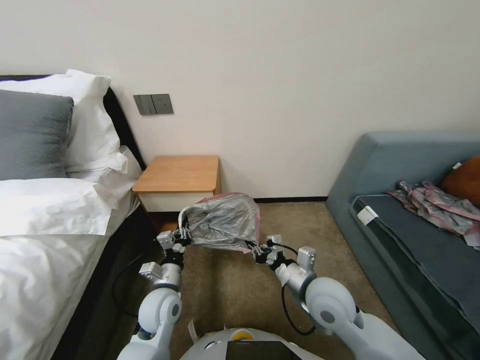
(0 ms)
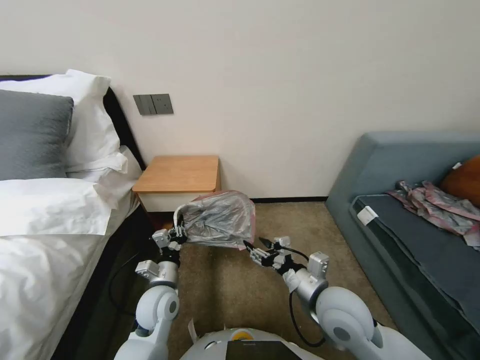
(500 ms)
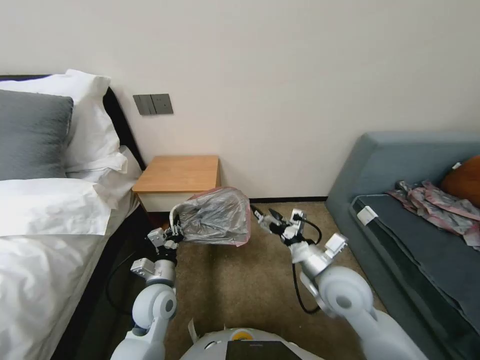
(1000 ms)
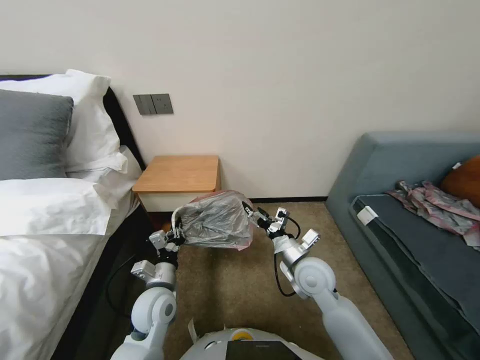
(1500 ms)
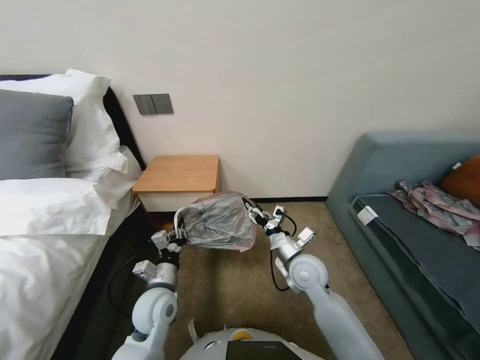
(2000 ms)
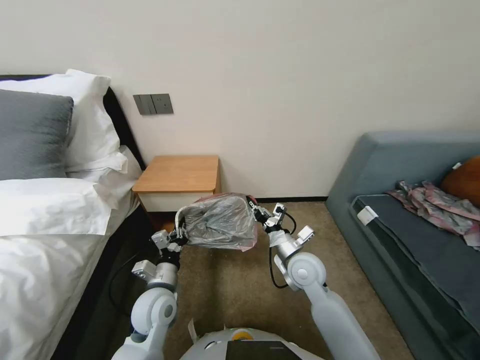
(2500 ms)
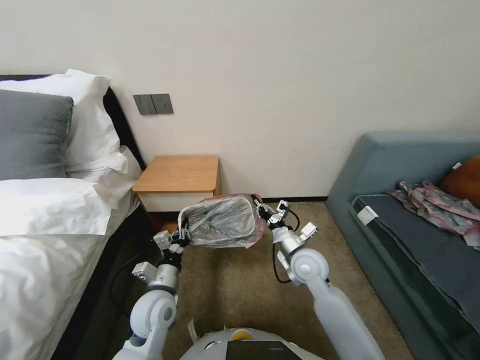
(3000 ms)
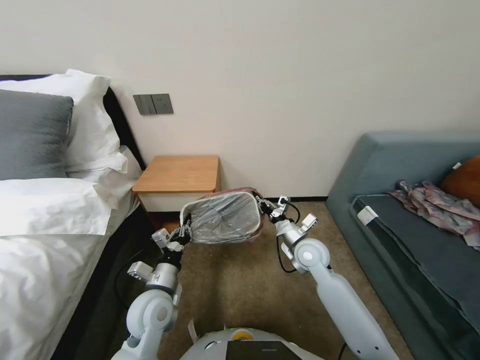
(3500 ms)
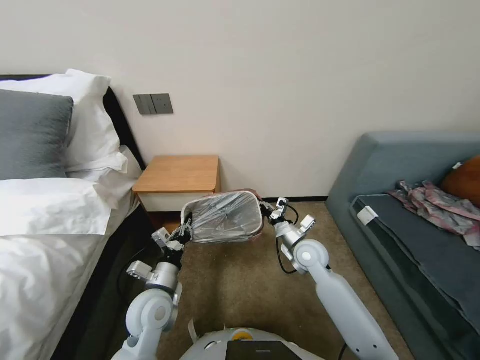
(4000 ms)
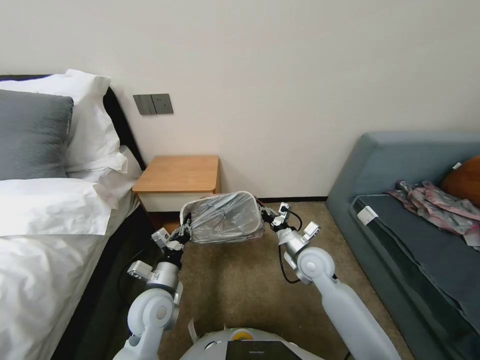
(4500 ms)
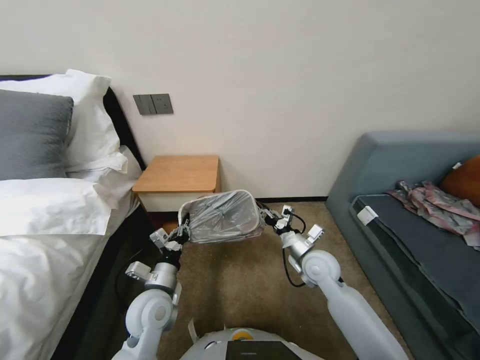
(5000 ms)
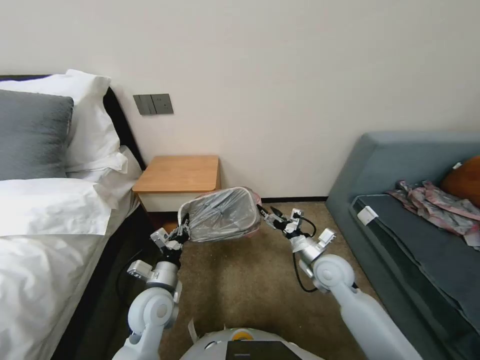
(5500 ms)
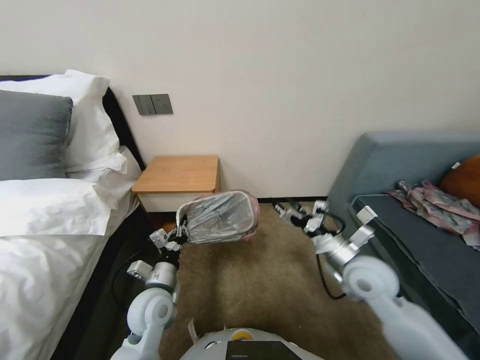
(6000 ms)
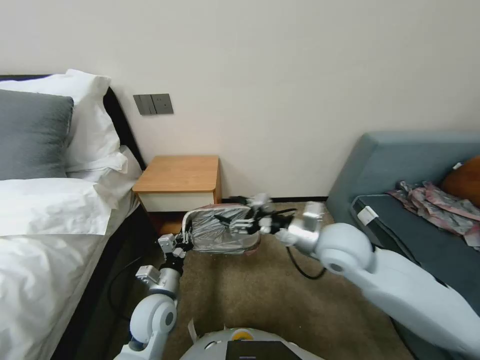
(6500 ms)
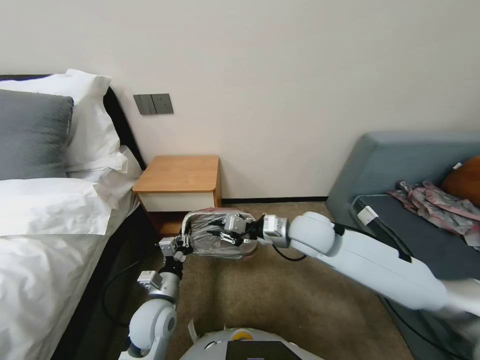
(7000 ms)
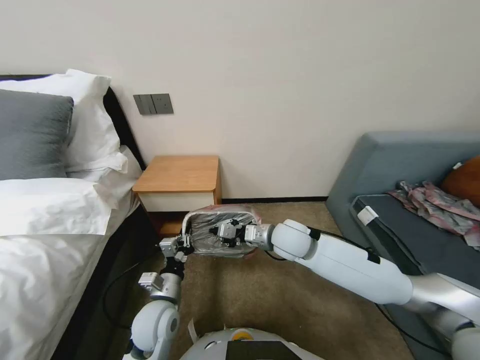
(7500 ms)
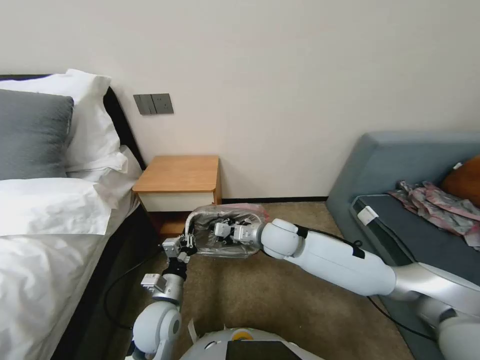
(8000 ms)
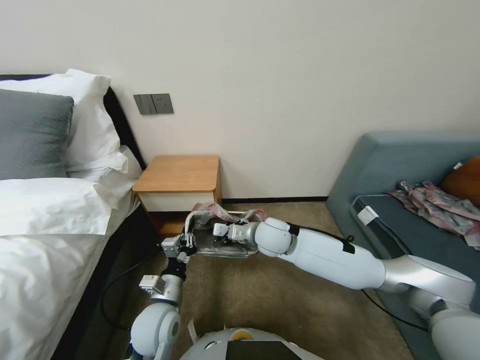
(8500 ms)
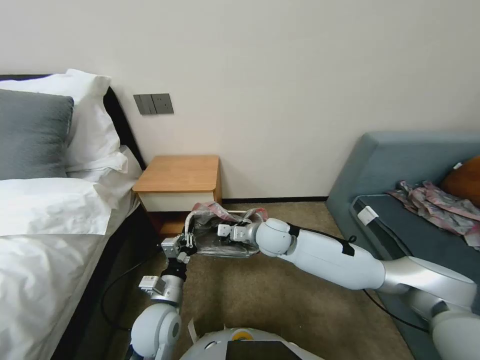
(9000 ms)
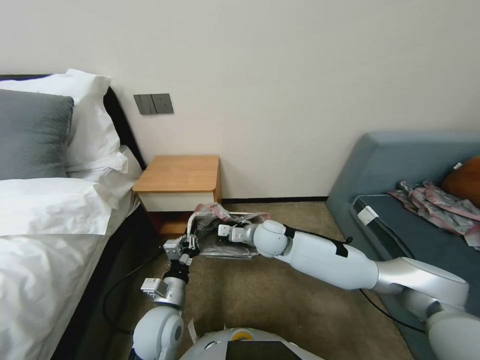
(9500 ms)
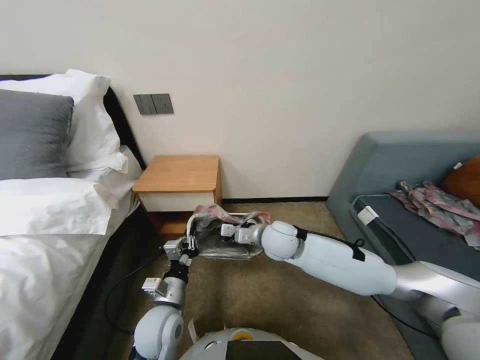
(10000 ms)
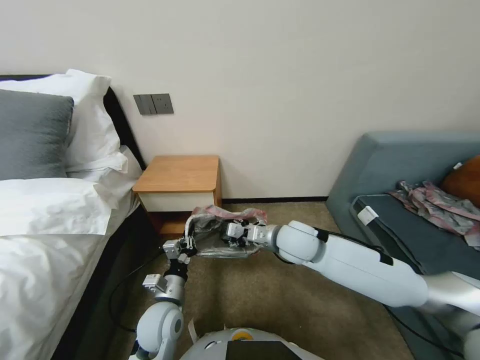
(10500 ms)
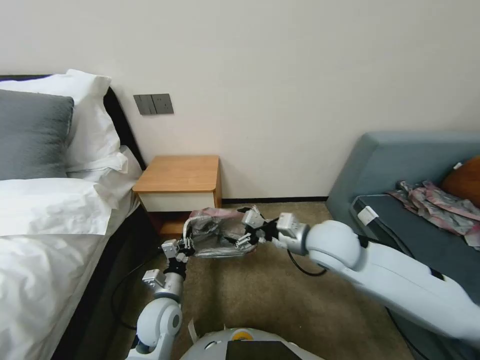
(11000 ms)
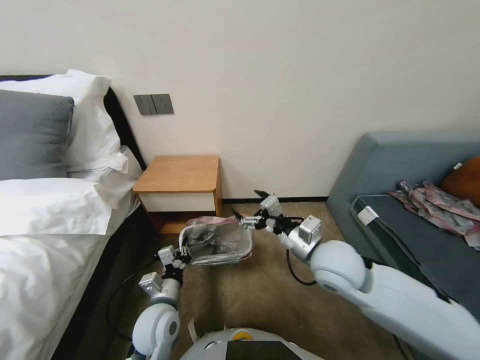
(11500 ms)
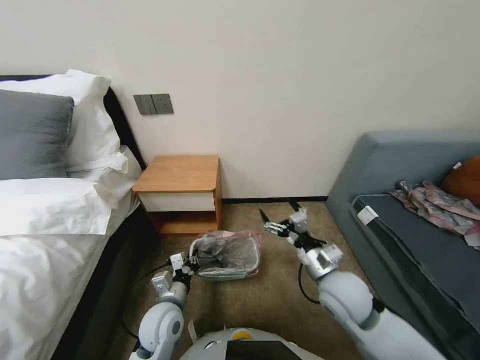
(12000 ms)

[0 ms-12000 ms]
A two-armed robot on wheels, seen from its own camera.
Task of the whole recording: Pick up the garbage bag from the table and place it over the trash can.
0 ms to 2000 ms: The right gripper goes some 5 cm forward, and opens.
2000 ms to 4000 ms: The right gripper shifts approximately 5 cm forward, and closes up.
4000 ms to 6000 ms: The right gripper is displaced backward and to the right by approximately 10 cm, and opens.
6000 ms to 8000 ms: The right gripper goes roughly 20 cm to the left and forward, and closes its fingers.
8000 ms to 10000 ms: The grippers stay close to where they were, moving slightly.
10000 ms to 12000 ms: The right gripper heads to the right and backward, covering about 15 cm, and opens.

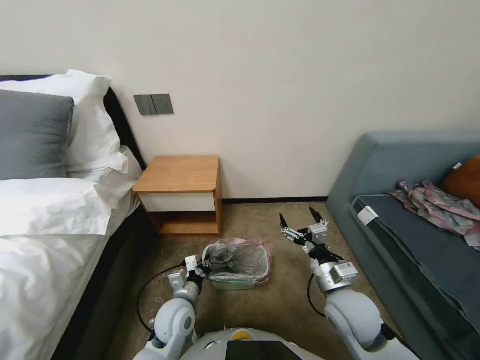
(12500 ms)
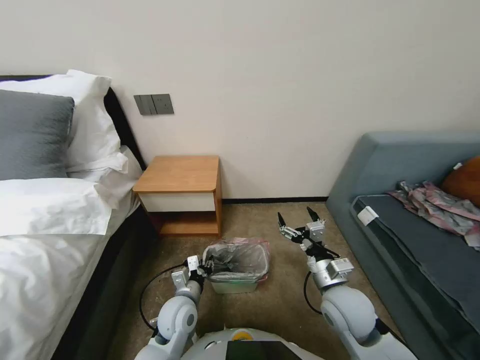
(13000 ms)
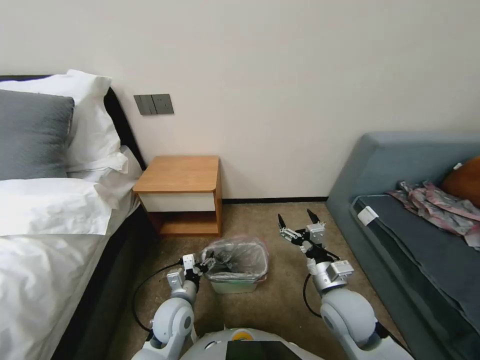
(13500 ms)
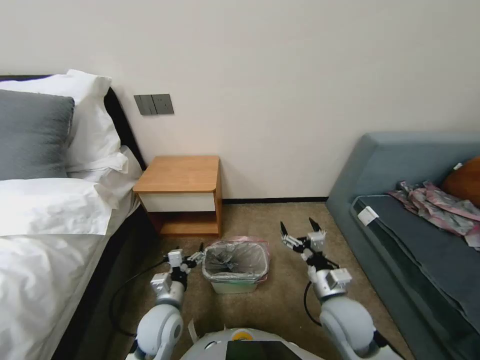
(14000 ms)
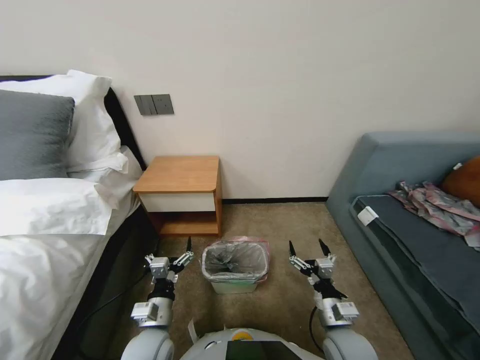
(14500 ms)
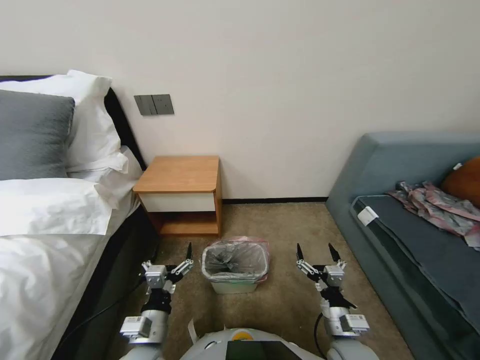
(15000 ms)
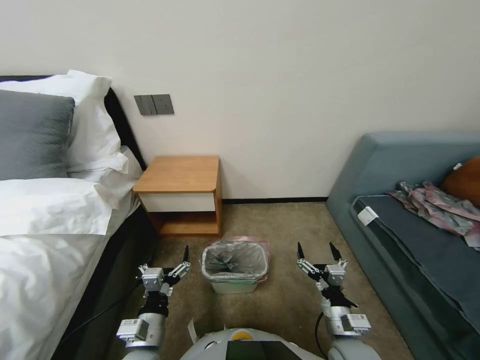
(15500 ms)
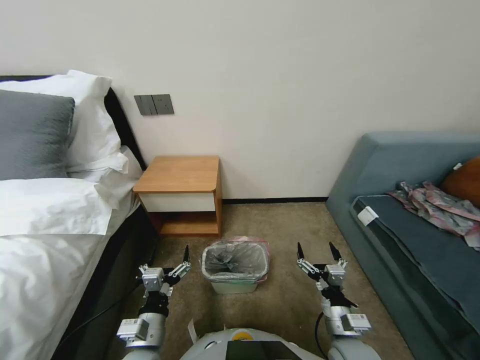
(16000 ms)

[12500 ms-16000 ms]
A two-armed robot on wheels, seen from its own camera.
Task of the whole recording: Pick up the garbage bag from the table and place it over the trash can.
12500 ms to 14500 ms: The right gripper shifts some 10 cm downward and backward; the left gripper shifts some 5 cm backward, and opens its fingers.
14500 ms to 16000 ms: The left gripper shifts by approximately 5 cm.
